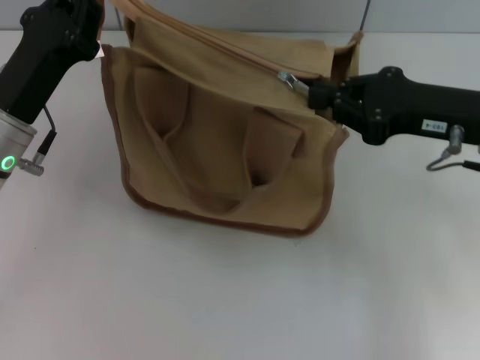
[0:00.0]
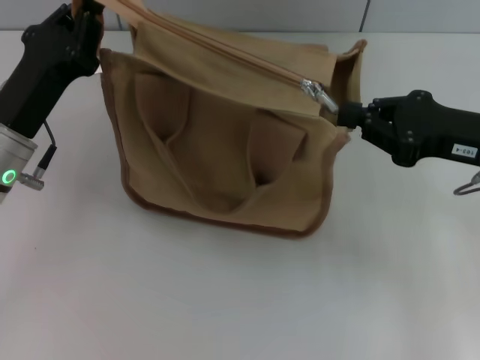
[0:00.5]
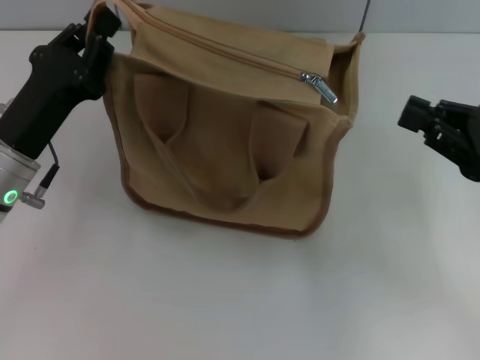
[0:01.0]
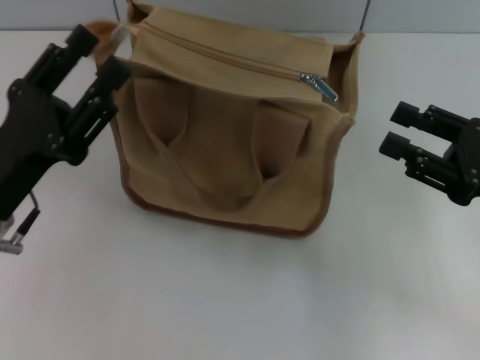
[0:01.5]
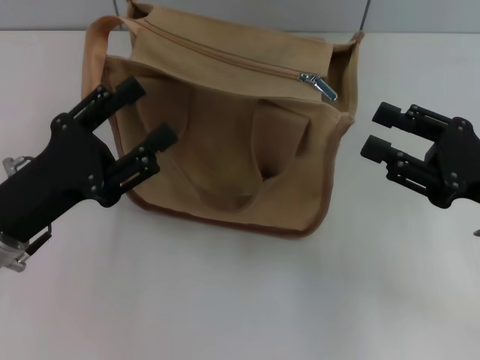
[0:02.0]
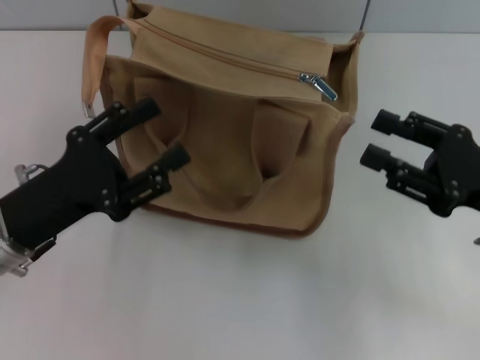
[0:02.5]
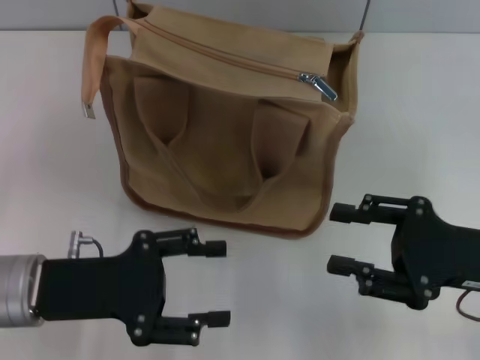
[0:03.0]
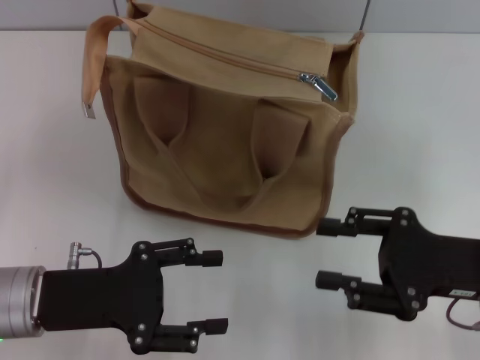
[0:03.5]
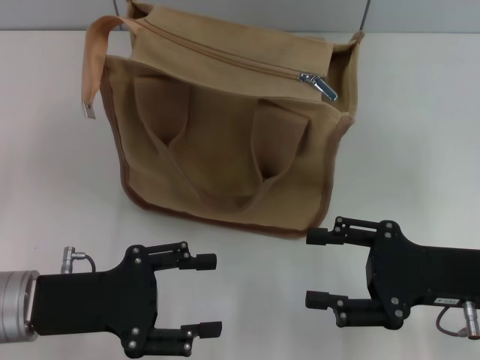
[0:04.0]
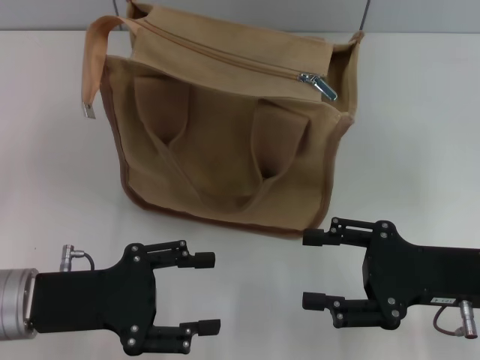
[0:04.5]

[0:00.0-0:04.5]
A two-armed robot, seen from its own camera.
Step, 0:01.0 to 0:01.5: Grab the zipper with your left hand.
0:00.0 to 0:02.0: The left gripper shifts approximately 5 cm backward, and opens its fingers. Meanwhile the right gripper travels backward and downward by some 10 cm, and opens up.
0:02.0 to 0:04.5: The right gripper changes place by about 5 cm.
